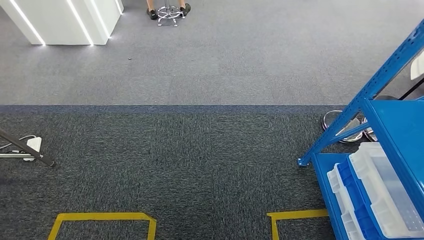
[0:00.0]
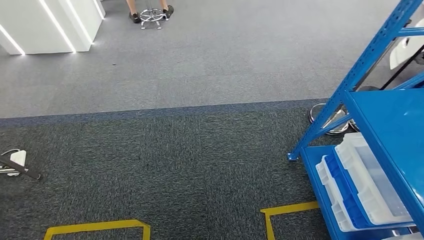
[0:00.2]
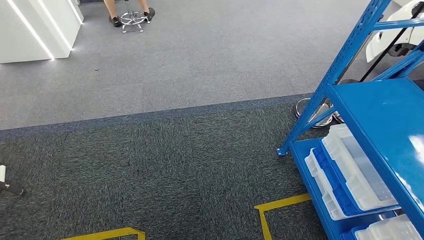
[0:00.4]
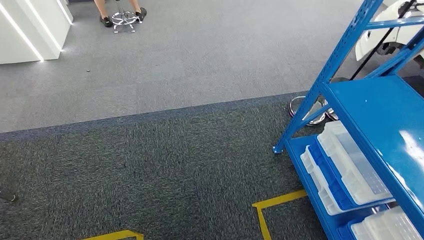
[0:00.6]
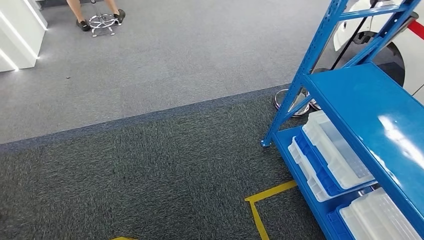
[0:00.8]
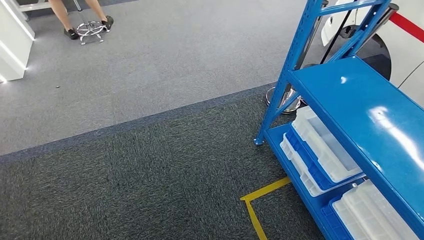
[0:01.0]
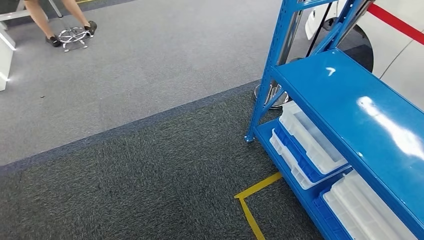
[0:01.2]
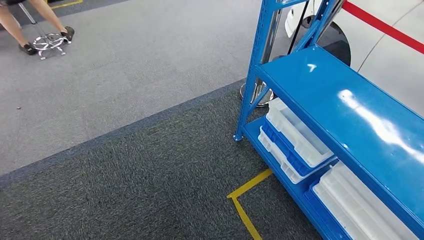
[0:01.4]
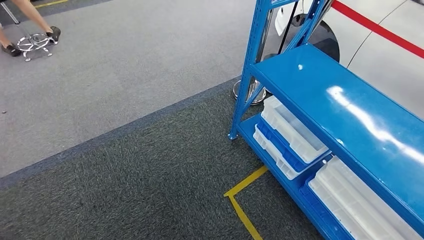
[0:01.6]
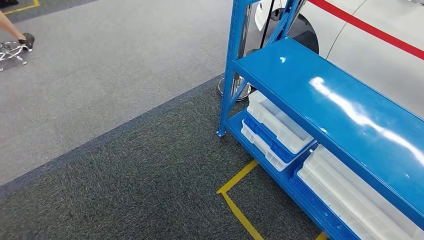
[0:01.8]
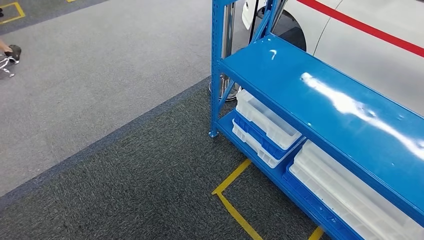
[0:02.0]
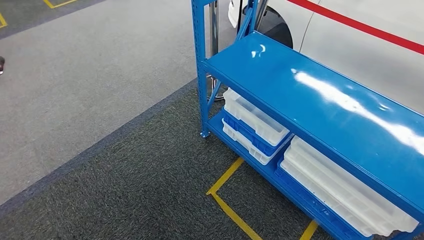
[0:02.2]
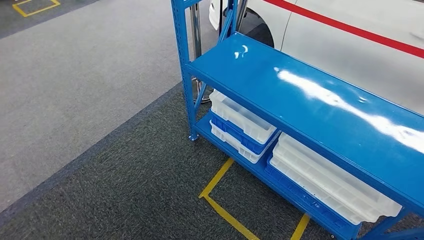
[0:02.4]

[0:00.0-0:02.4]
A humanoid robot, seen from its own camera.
Step, 0:00.0 to 0:02.4: Return to the initial position at the shelf.
